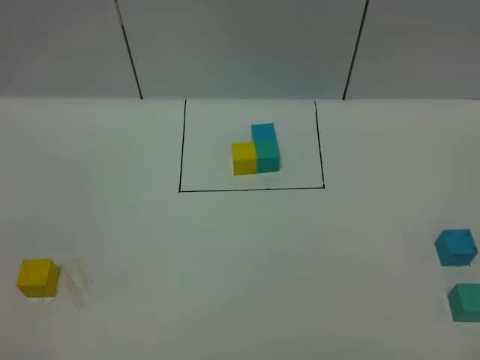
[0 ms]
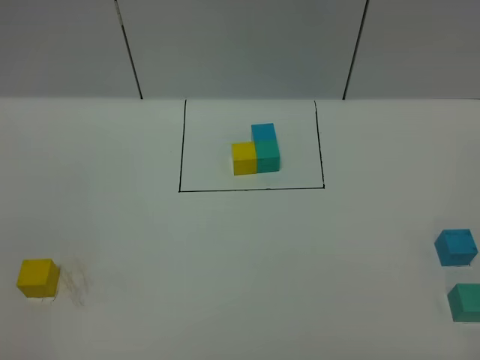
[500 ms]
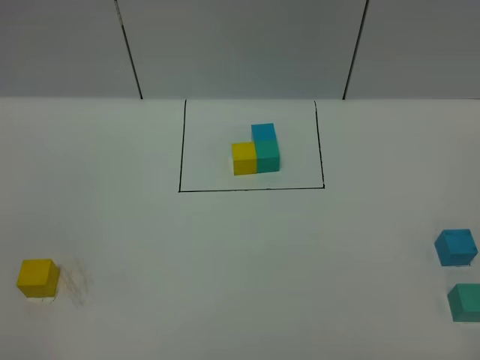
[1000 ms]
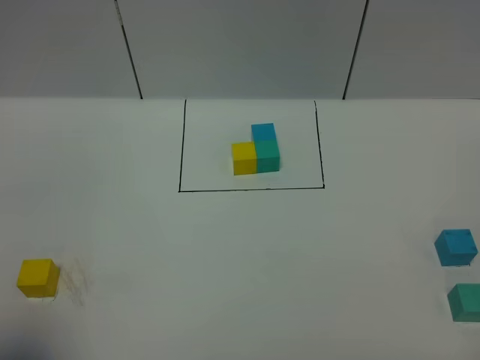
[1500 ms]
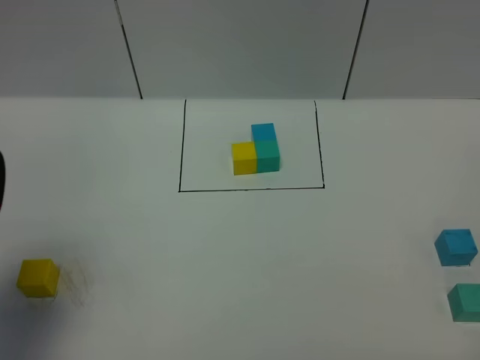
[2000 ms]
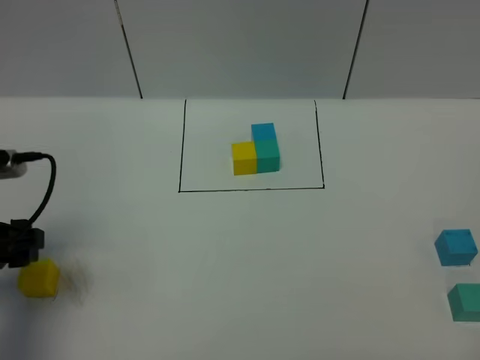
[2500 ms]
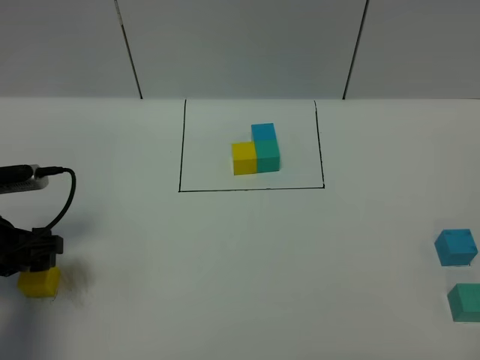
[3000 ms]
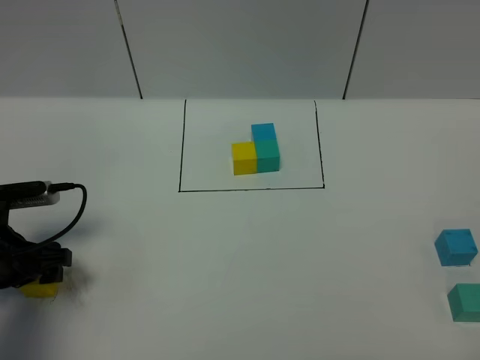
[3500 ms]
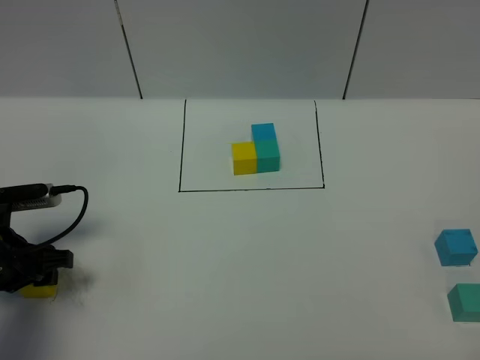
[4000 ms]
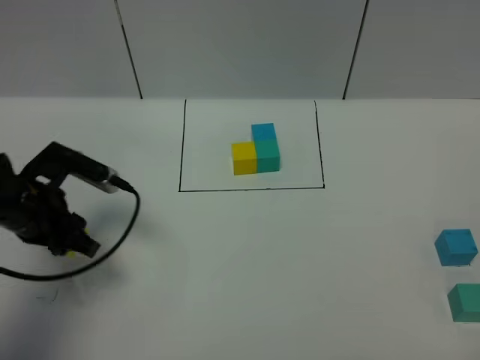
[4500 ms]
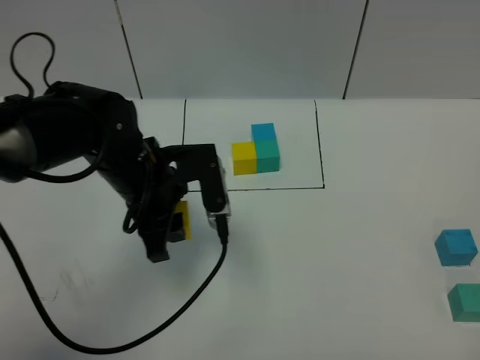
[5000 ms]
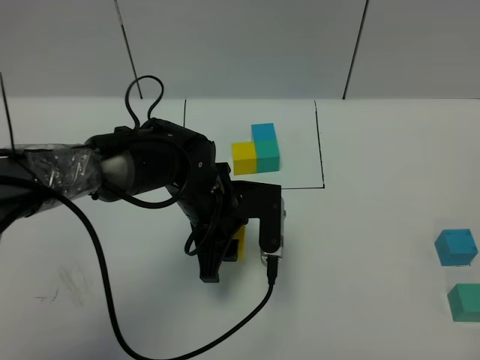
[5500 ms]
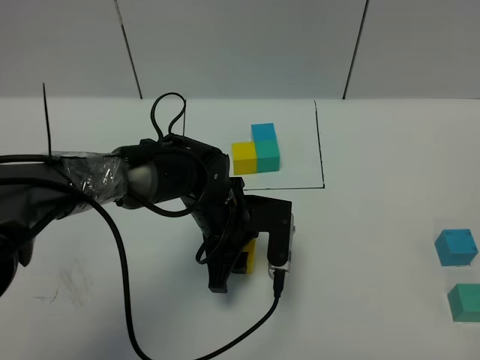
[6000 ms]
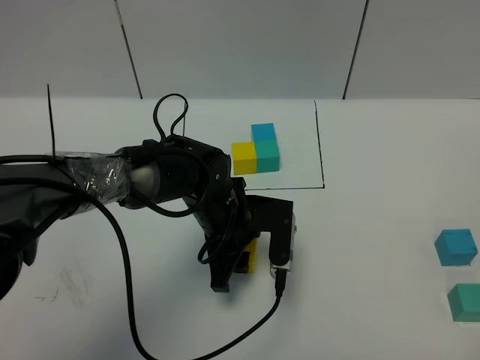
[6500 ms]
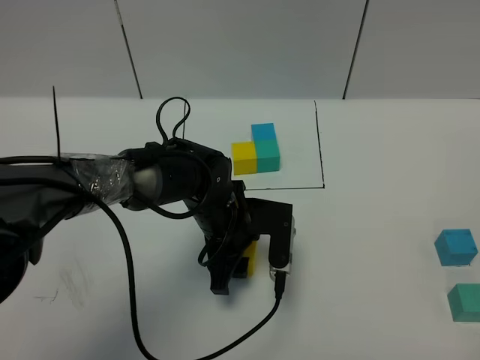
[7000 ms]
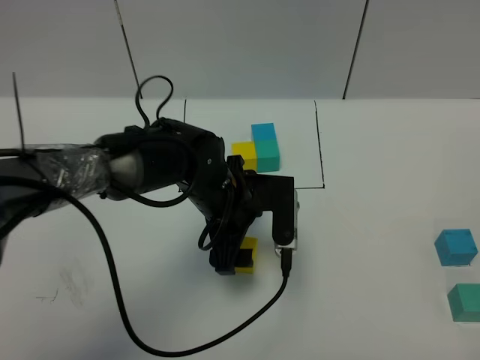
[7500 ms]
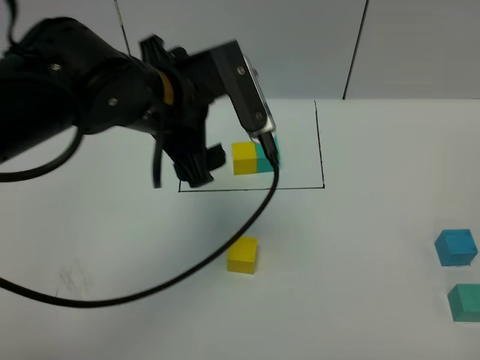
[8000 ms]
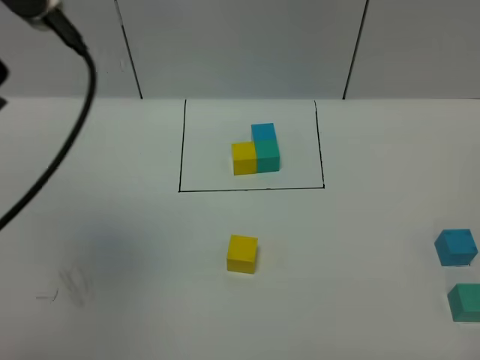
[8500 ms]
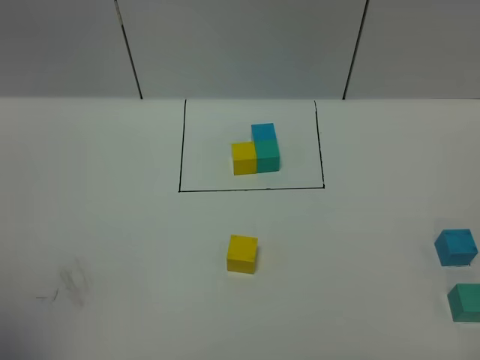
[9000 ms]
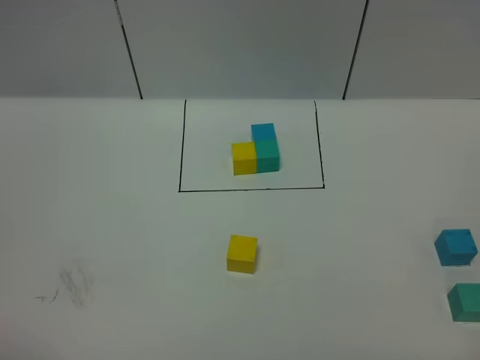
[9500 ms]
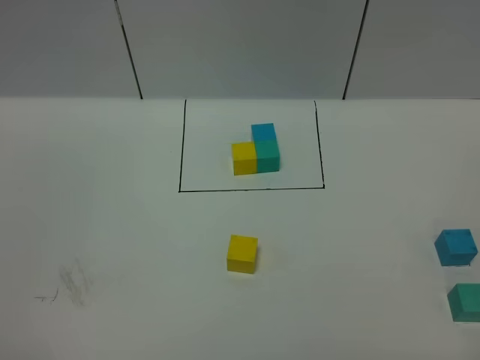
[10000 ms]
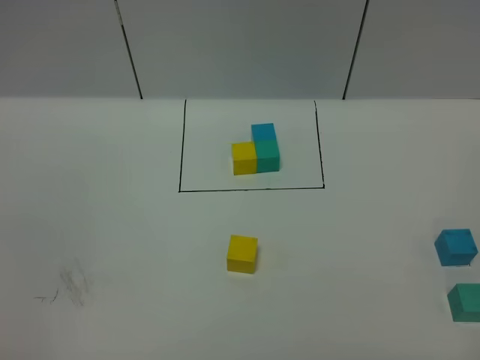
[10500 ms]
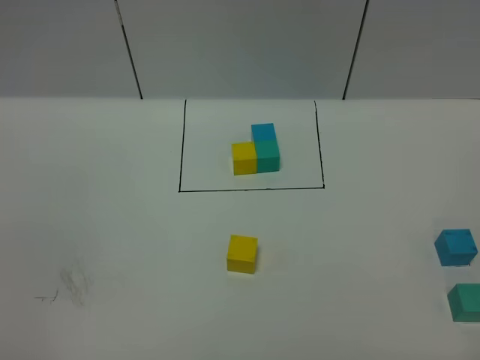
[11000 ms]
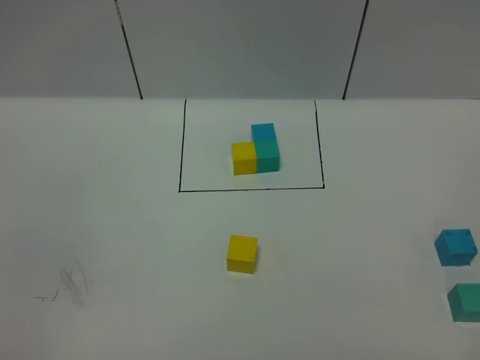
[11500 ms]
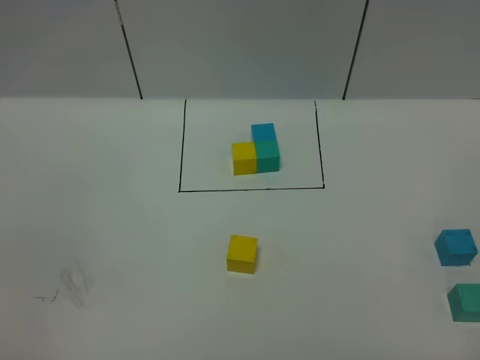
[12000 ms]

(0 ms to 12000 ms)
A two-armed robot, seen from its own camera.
Task of the whole recording: According to the building block template in front, assemble the scattered blocks together.
Step, 2000 ms - 7500 ms: Put the yellow cube in the center of the table.
0 ms - 2000 ms: The left gripper travels forward by some 20 cm.
2000 ms - 4000 ms: The left gripper goes approximately 15 cm downward and forward, and closes up.
4000 ms - 6000 ms: The left gripper moves to the right, approximately 25 cm.
6000 ms - 8000 ms: The left gripper goes approximately 20 cm upward, and opens.
8000 ms - 10000 ms: The left gripper moves backward and to the left, about 40 cm.

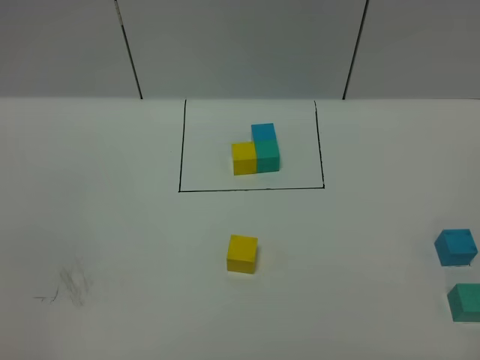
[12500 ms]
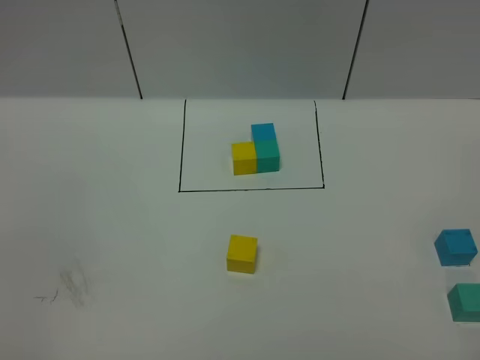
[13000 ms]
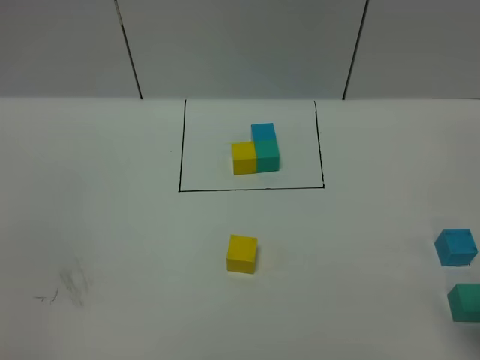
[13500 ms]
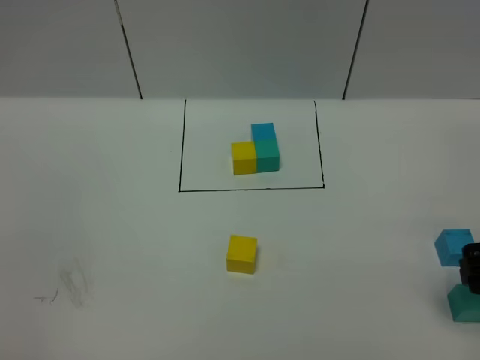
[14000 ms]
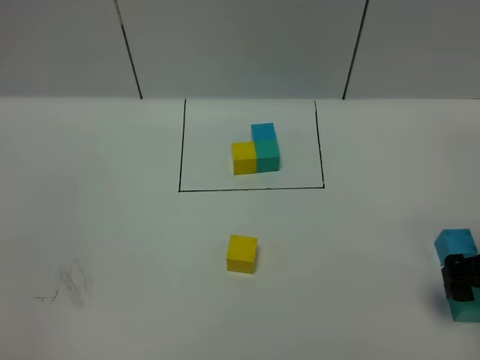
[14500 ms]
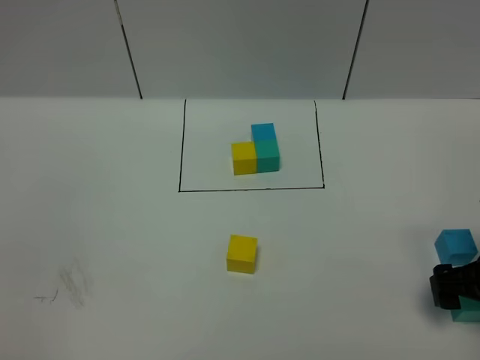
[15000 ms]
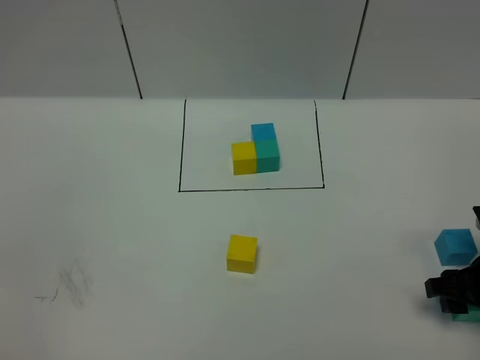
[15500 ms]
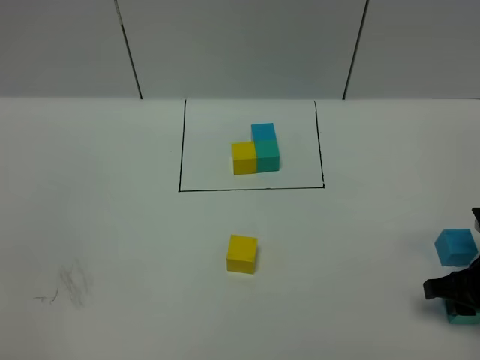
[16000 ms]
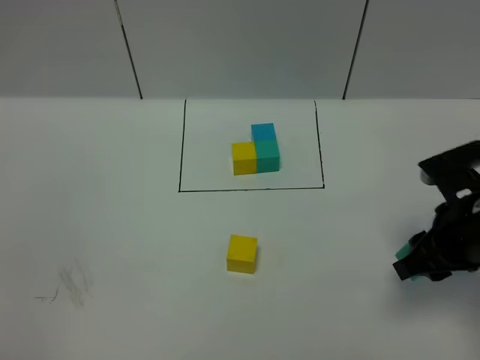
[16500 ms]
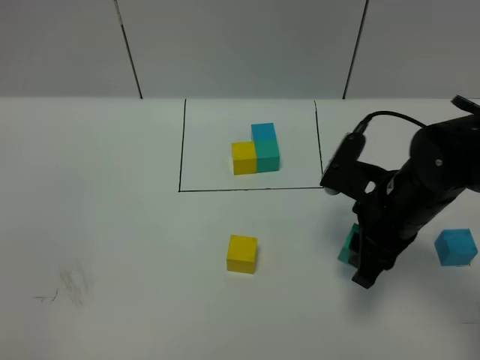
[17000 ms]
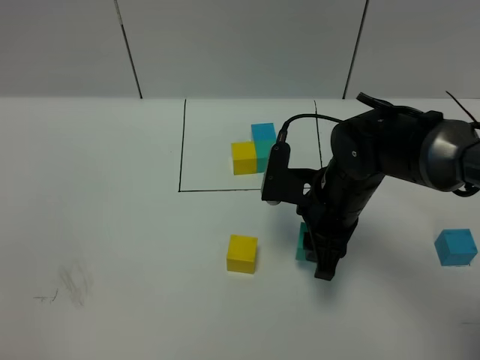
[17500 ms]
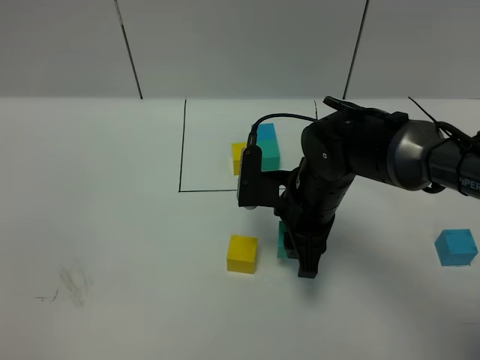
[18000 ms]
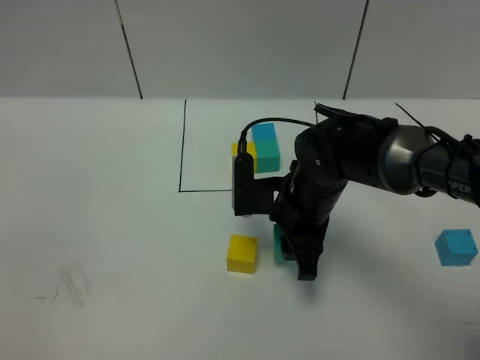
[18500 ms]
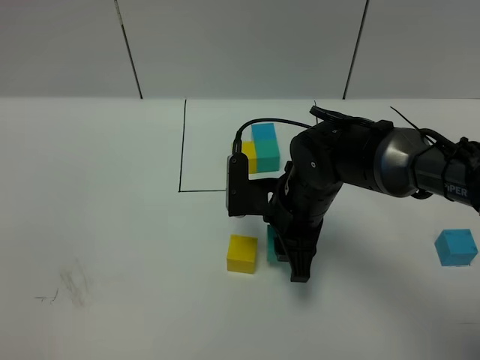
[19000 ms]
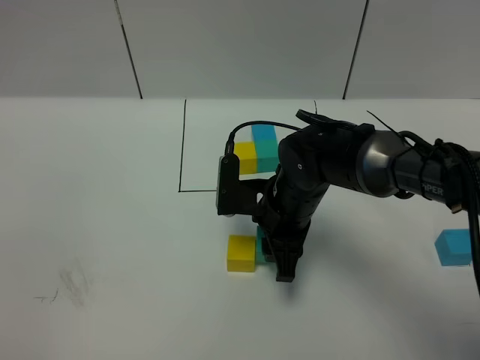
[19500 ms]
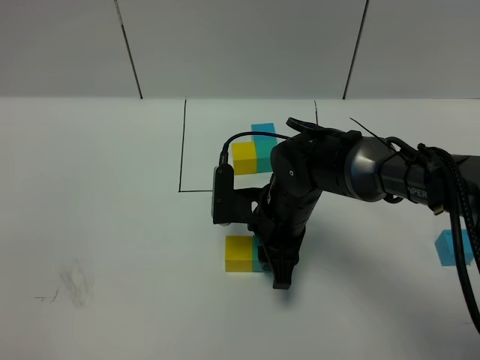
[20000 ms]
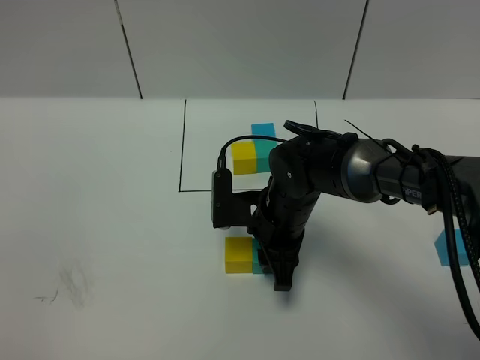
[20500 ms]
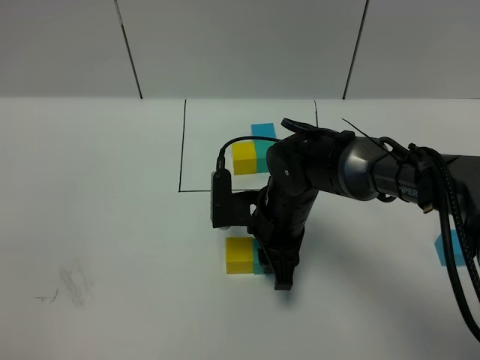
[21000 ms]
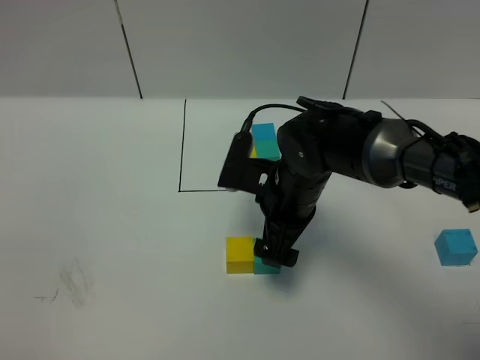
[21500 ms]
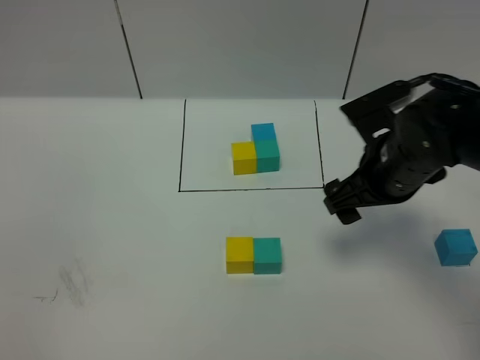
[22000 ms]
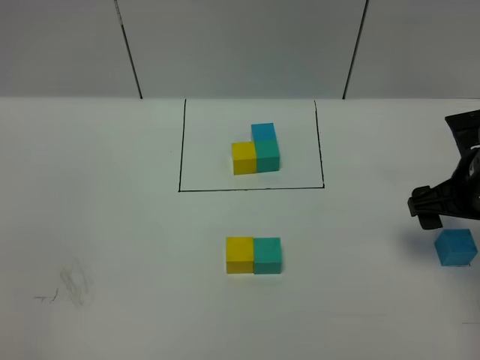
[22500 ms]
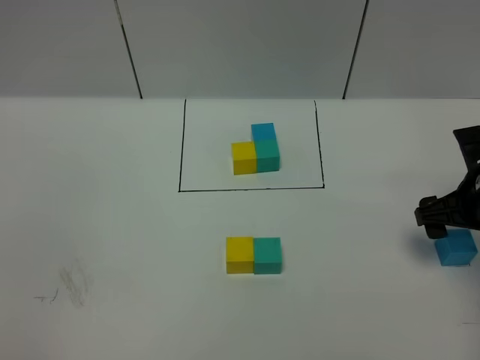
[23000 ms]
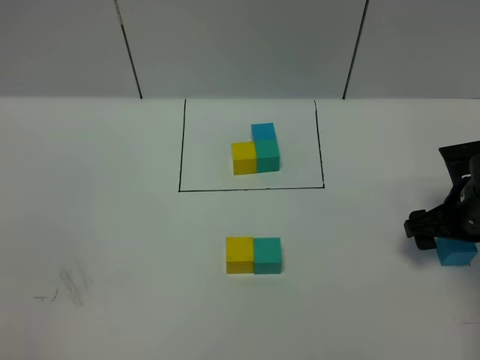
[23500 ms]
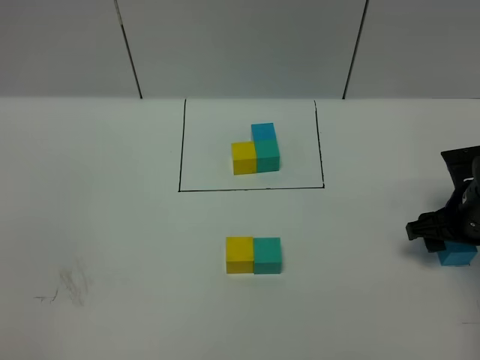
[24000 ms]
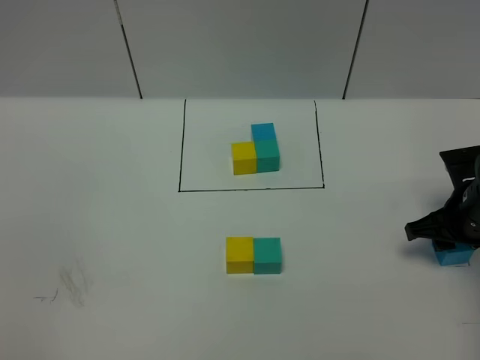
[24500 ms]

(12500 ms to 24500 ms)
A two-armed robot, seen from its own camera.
Task of the whole recording: According to the building block template in front, assemble the scattered blocks together.
Step, 12500 ms - 21500 ms: Put the green cube on the right of the yellow cube.
12500 ms - 14500 ms: The right gripper heads forward and downward, covering roughly 25 cm, and opens.
14500 ms - 16500 ms: The right gripper is displaced to the left by some 5 cm, and closes up.
16500 ms - 18500 ms: The right gripper goes some 20 cm to the left and forward.
18500 ms - 20500 ms: The grippers move only a little.
20500 ms - 22500 ms: The right gripper goes roughly 20 cm to the right, and opens.
22500 ms - 24500 ms: The right gripper heads downward, covering some 5 cm, and closes its fingers.

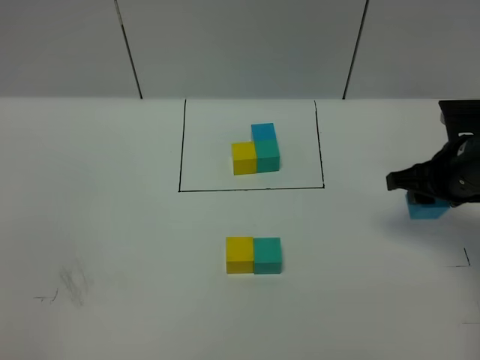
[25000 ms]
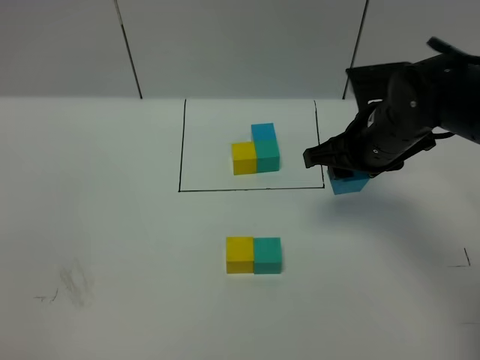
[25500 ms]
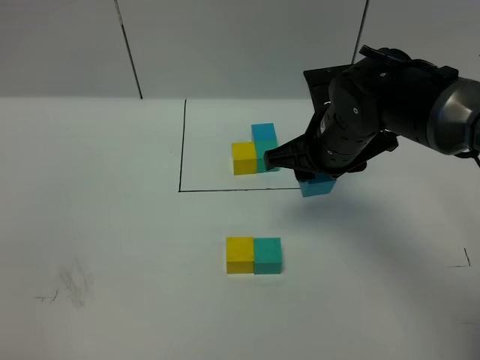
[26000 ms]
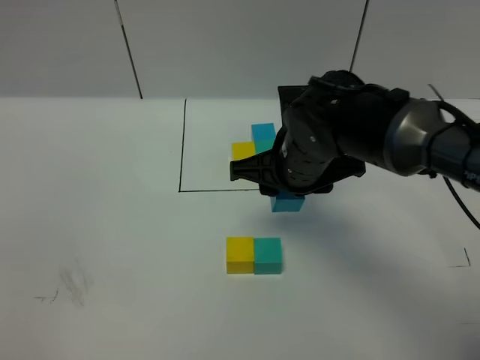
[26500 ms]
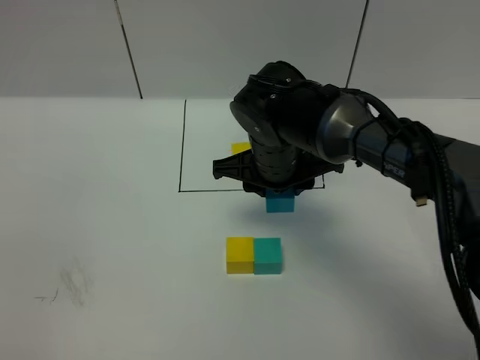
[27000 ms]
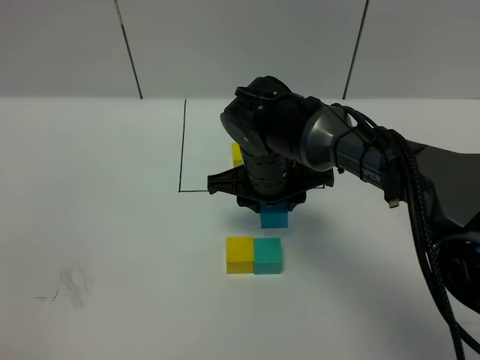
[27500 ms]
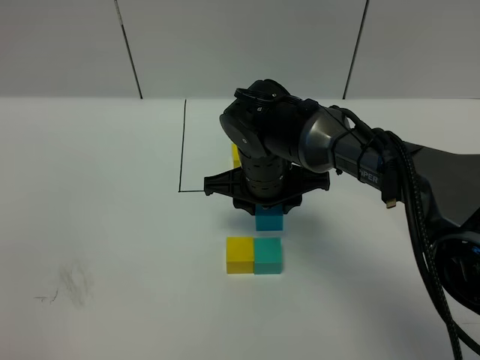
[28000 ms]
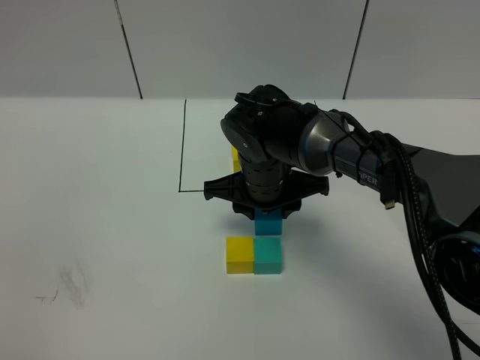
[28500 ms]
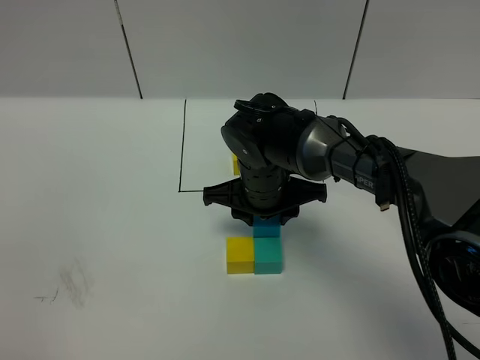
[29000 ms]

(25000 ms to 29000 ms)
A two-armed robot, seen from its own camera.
Task of the whole recording: According to the building block template in front, assemble the scattered blocks together.
25000 ms - 27000 ms: The right gripper shifts roughly 20 cm to the left.
27000 ms - 29000 ms: There are only small adjustments of the grippers.
